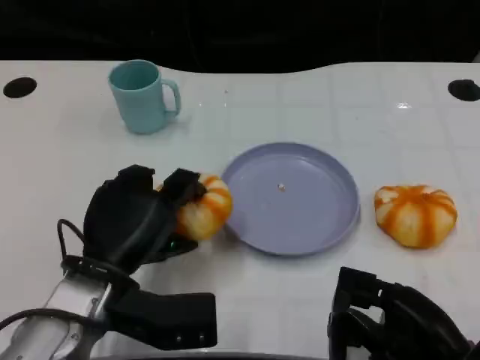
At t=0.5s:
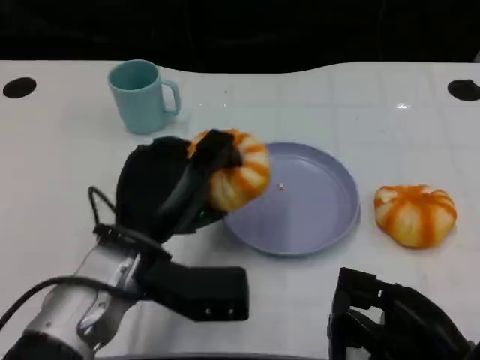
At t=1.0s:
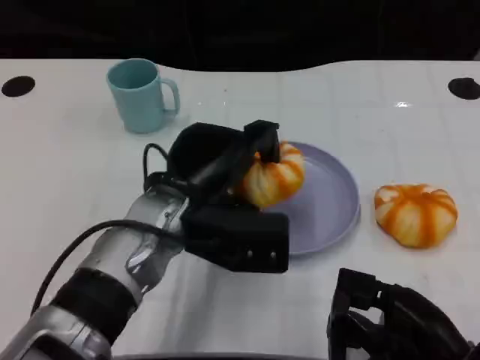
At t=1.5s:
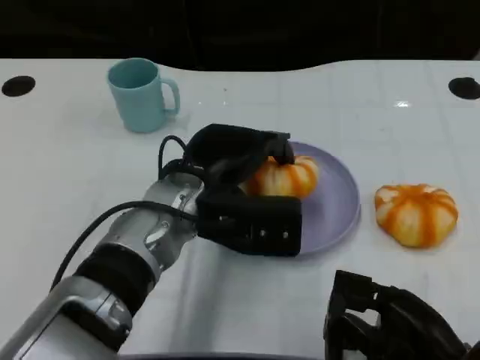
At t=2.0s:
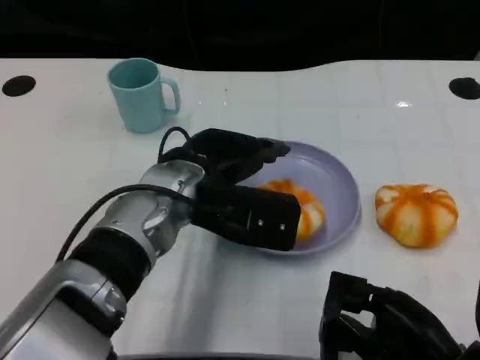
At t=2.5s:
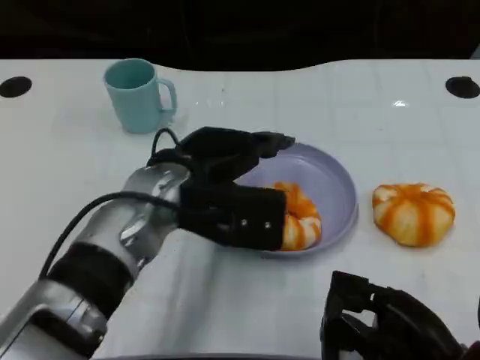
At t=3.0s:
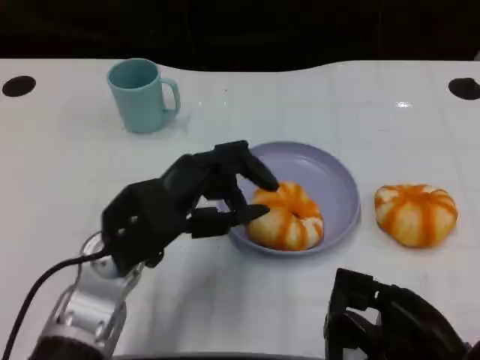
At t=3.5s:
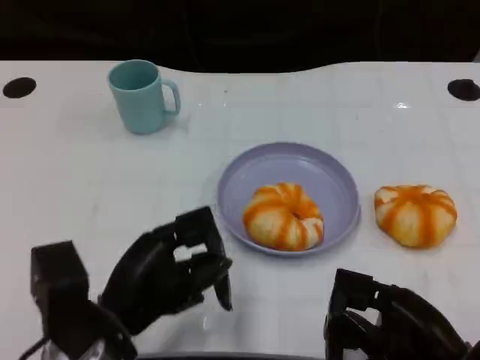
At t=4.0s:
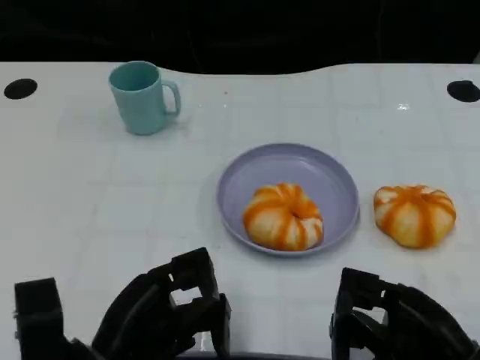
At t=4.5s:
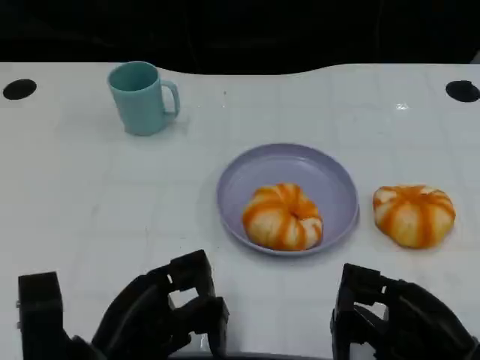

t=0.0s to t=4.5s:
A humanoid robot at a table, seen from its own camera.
Task of the whole recording: Grasp the bread from the table and place it into the plate.
t=0.0s to t=2.0s: The left hand is displaced to the right, forward and upward by approximately 15 cm.
t=2.0s to t=4.5s: The left hand shifts some 20 cm backward, to the left and downward.

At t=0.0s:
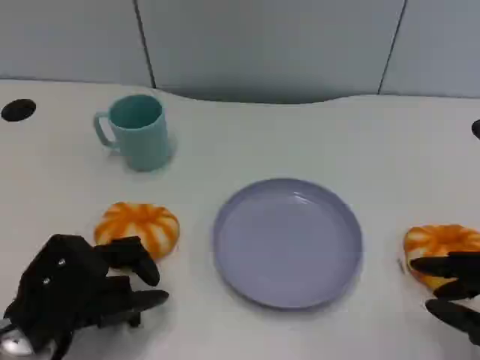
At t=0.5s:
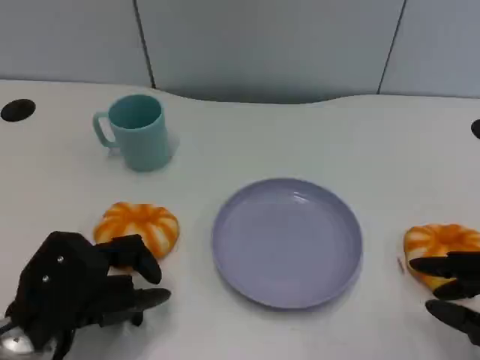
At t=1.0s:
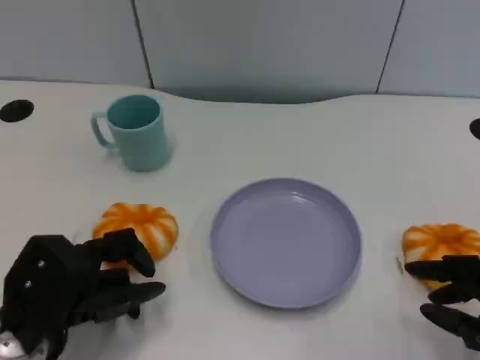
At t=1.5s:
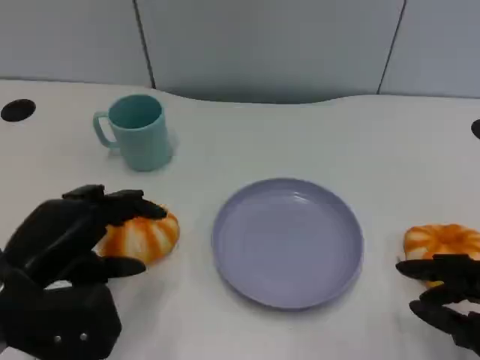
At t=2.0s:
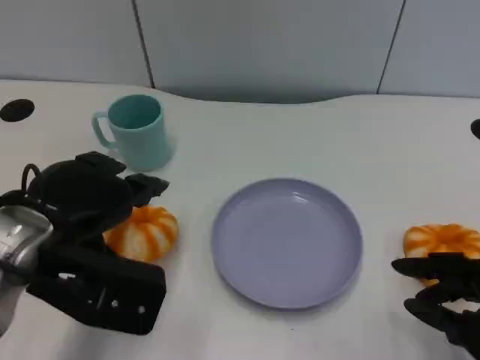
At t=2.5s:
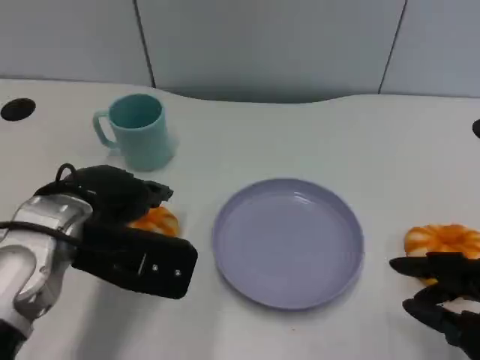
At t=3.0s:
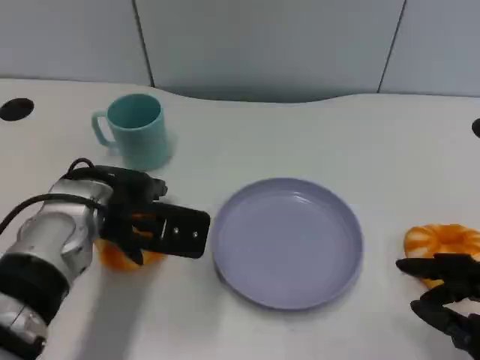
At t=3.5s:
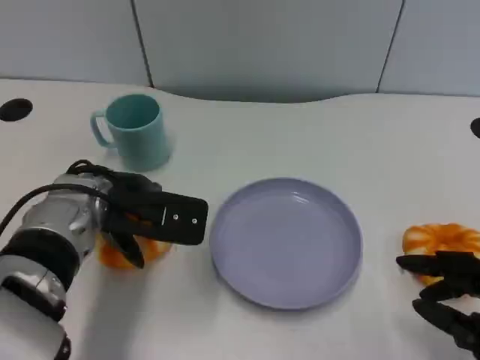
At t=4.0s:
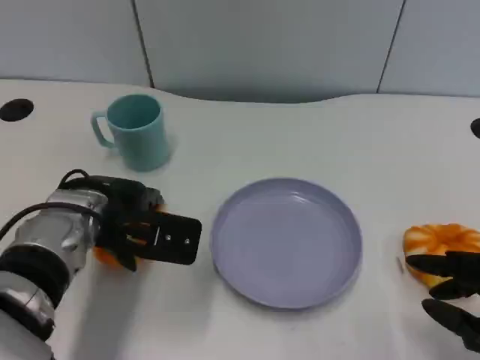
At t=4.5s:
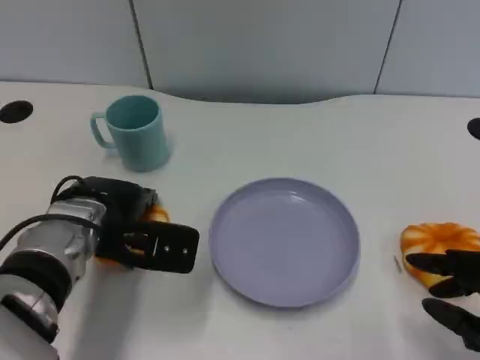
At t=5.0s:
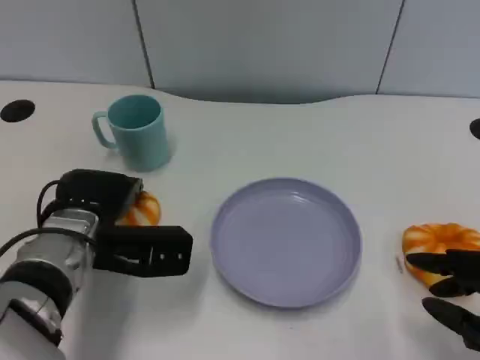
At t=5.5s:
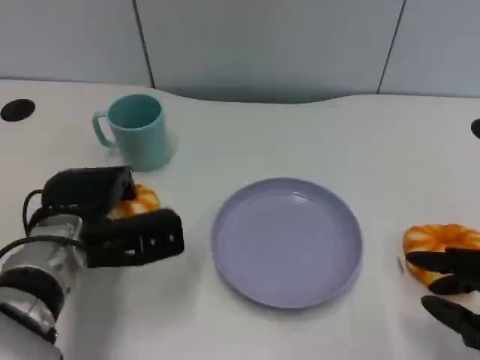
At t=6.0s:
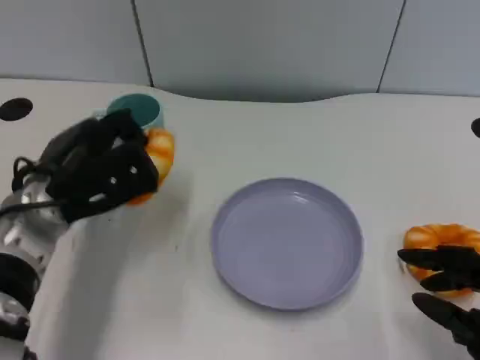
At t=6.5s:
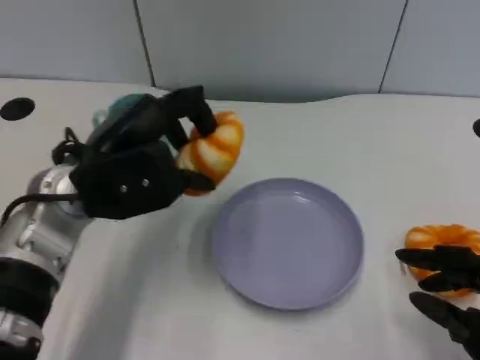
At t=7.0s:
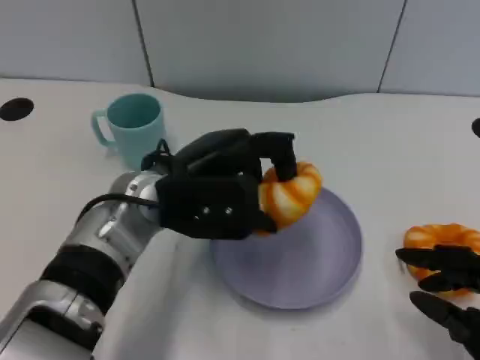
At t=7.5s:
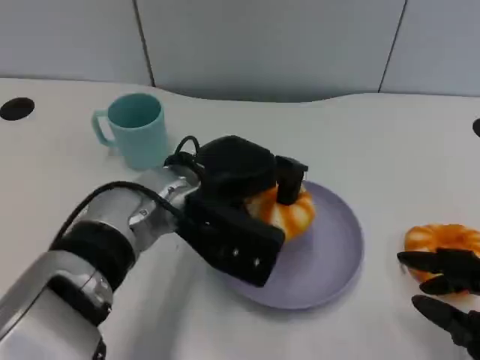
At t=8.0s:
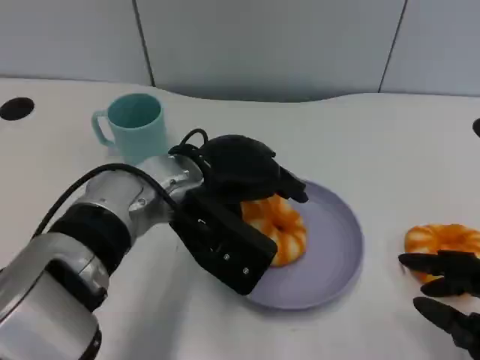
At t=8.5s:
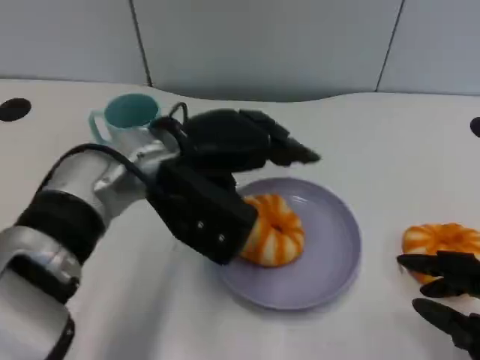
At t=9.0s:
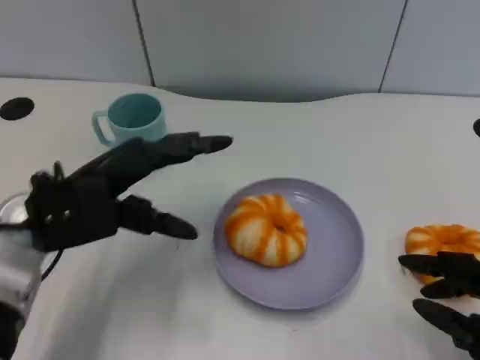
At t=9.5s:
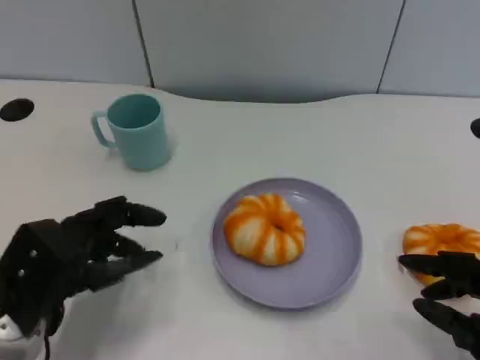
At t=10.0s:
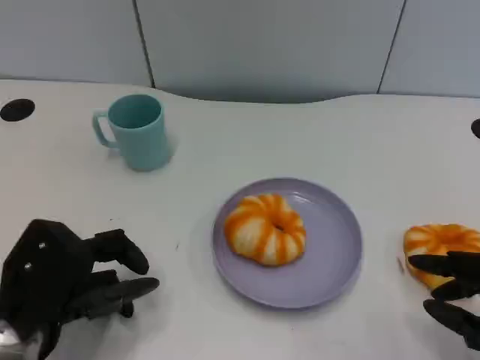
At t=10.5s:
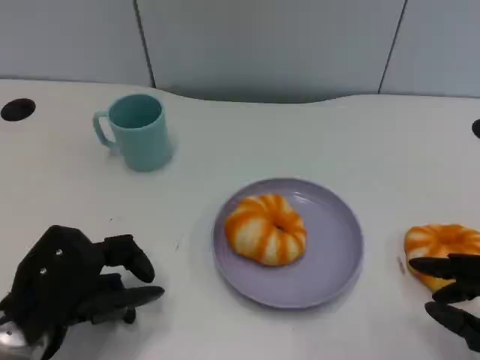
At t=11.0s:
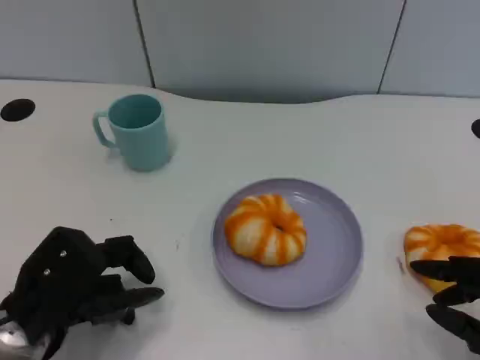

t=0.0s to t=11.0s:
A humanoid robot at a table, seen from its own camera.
Task of the whole recording: Grasp the bread from the table and place it into the plate.
t=0.0s to t=2.0s: The left hand travels upward by some 10 cm.
t=2.0s to t=3.5s: The left hand is displaced forward and downward by some 10 cm.
t=3.5s to t=5.5s: The left hand ends up roughly 5 cm from where it was.
t=5.5s to t=7.5s: The left hand is displaced to the right and upward by about 15 cm.
t=7.5s to t=9.0s: The left hand goes approximately 15 cm to the left.
t=9.0s to t=11.0s: The left hand goes approximately 10 cm backward and downward.

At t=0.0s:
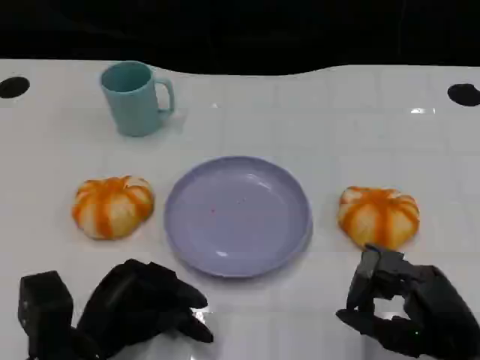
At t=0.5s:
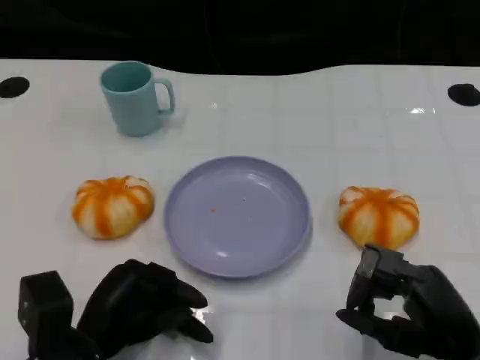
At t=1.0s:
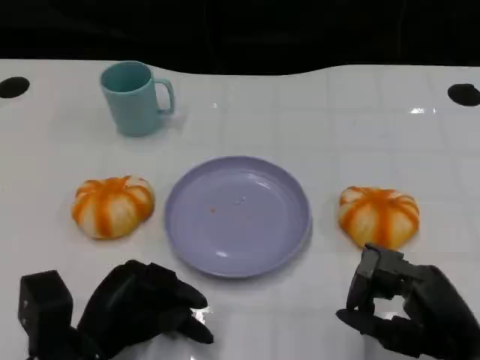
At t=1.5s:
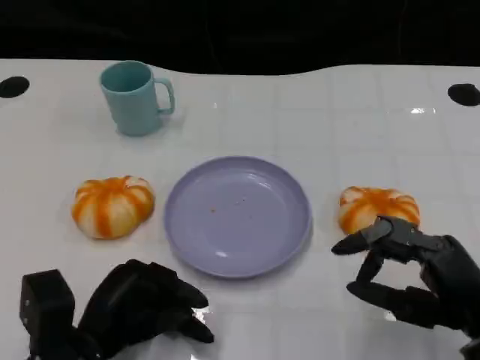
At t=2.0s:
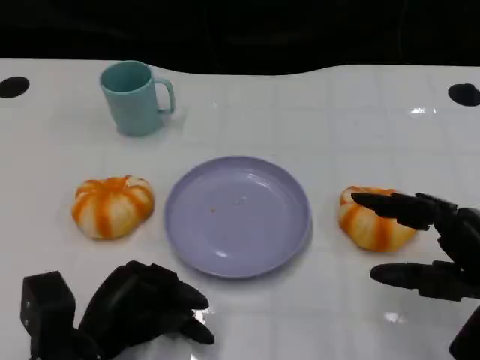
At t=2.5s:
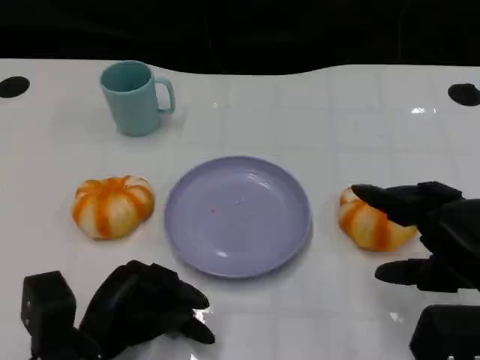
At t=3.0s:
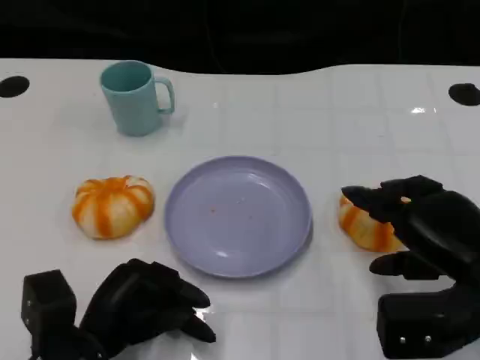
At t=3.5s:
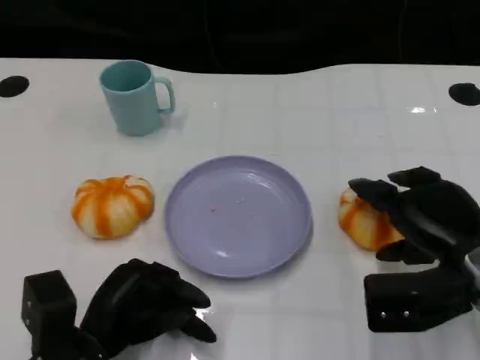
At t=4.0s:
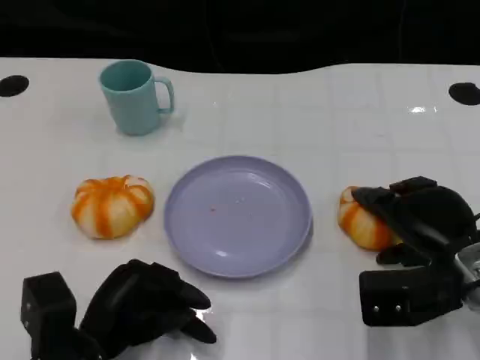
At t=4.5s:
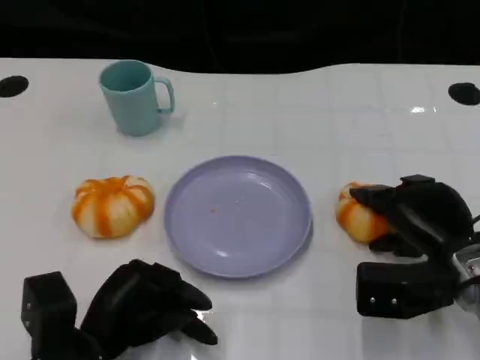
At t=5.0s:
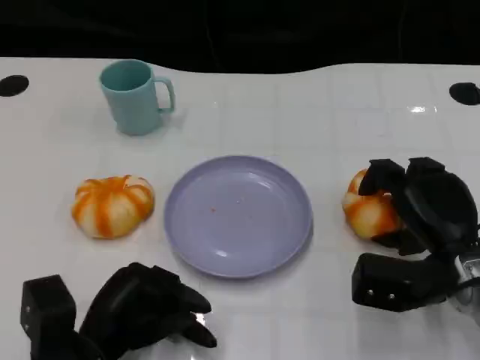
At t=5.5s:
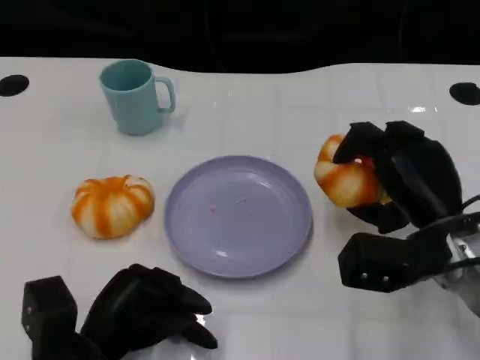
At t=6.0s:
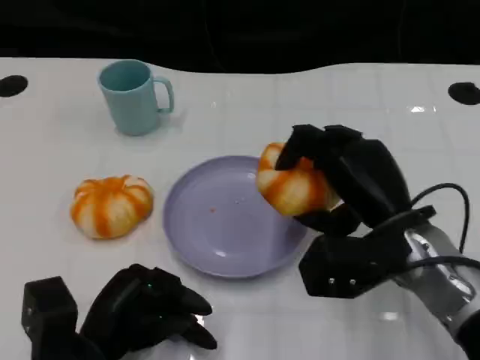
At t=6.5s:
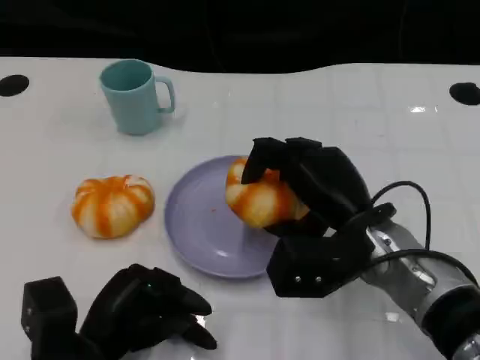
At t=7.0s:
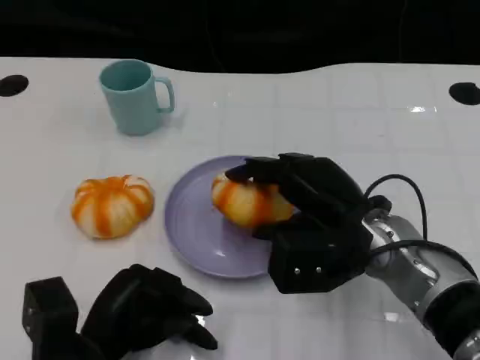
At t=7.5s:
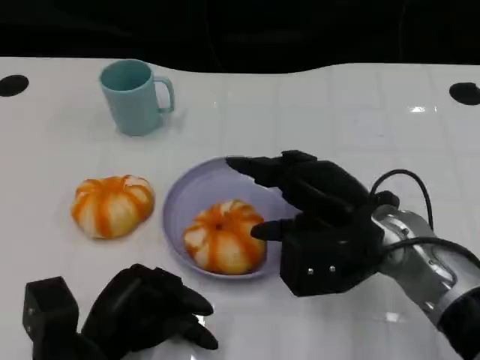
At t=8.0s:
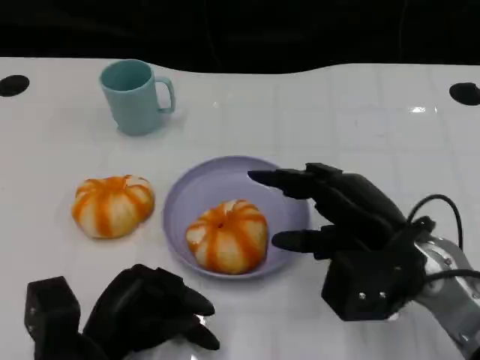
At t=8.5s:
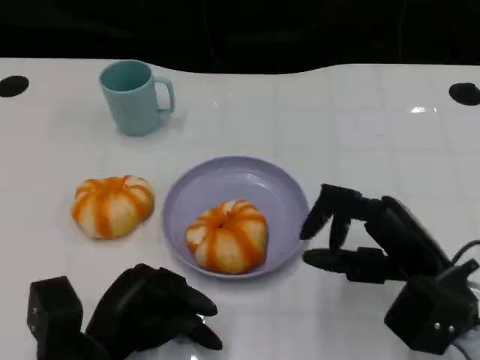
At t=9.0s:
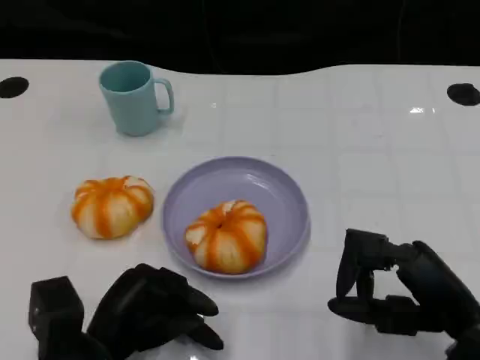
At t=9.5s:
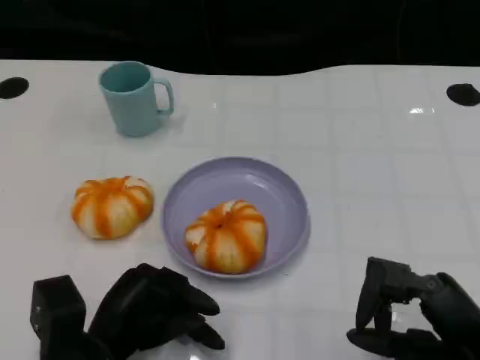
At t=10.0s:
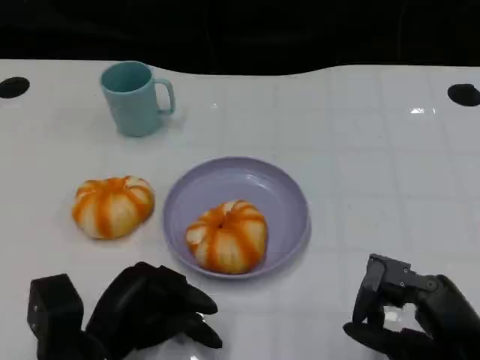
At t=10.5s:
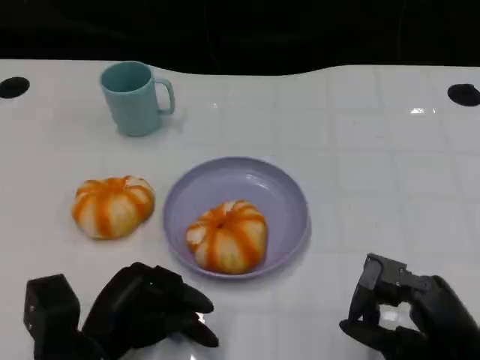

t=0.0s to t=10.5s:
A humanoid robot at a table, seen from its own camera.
Task of the whole recording: Grasp the bread from the table and place it into the plate.
t=0.0s to t=2.0s: The right hand travels upward by about 5 cm.
t=2.0s to t=4.0s: The right hand goes approximately 10 cm forward.
t=4.0s to t=6.5s: The right hand shifts some 10 cm to the left.
t=6.5s to t=8.5s: The right hand heads to the right and backward, covering approximately 10 cm.
t=8.5s to t=10.5s: The right hand is displaced backward by some 5 cm.
